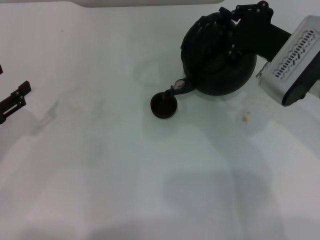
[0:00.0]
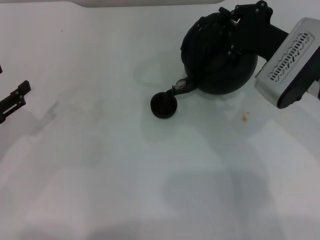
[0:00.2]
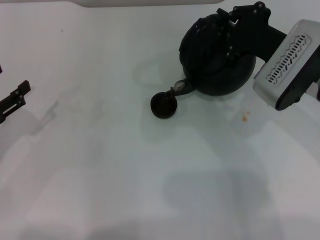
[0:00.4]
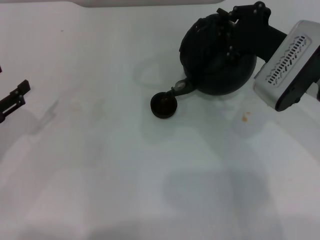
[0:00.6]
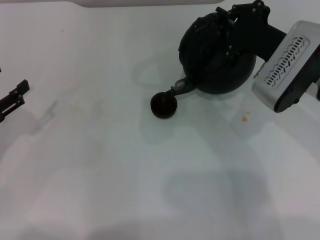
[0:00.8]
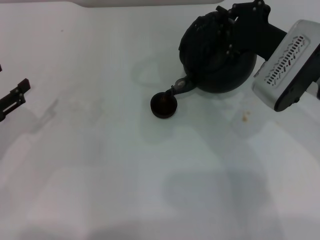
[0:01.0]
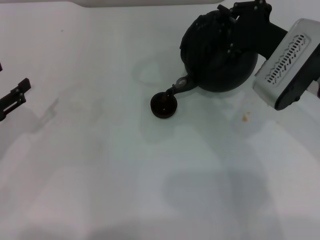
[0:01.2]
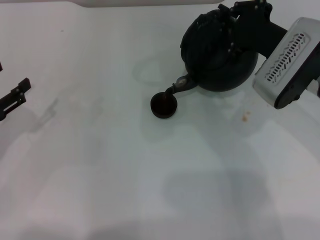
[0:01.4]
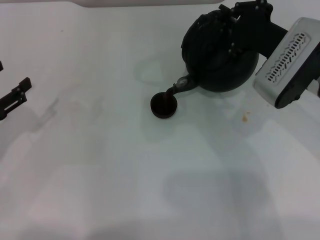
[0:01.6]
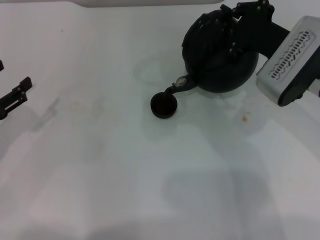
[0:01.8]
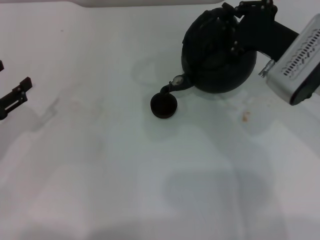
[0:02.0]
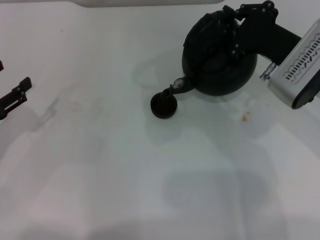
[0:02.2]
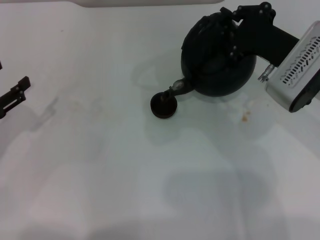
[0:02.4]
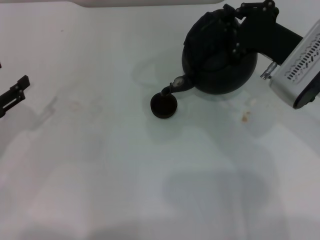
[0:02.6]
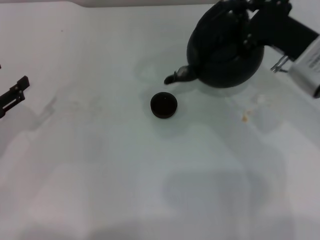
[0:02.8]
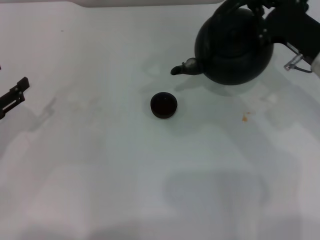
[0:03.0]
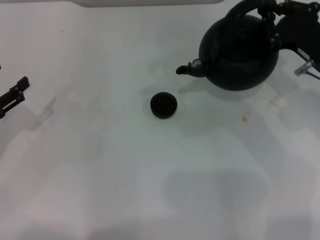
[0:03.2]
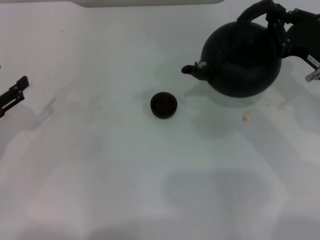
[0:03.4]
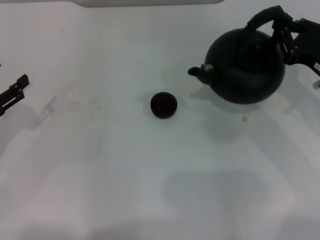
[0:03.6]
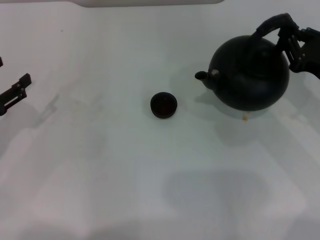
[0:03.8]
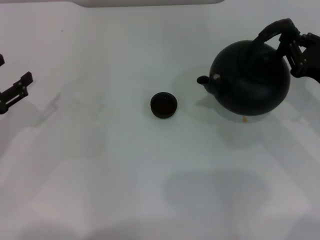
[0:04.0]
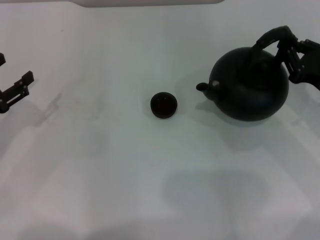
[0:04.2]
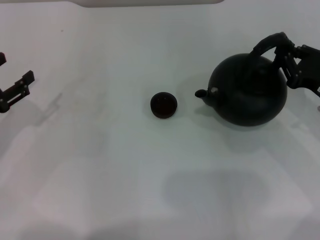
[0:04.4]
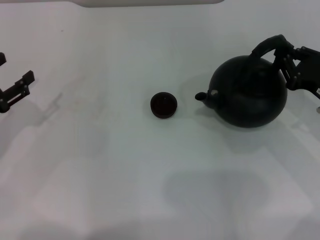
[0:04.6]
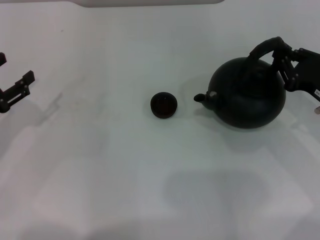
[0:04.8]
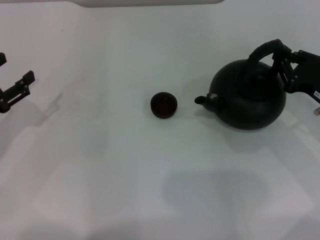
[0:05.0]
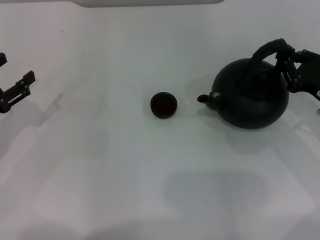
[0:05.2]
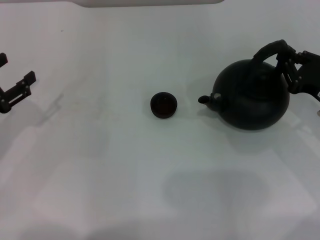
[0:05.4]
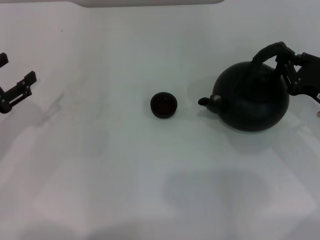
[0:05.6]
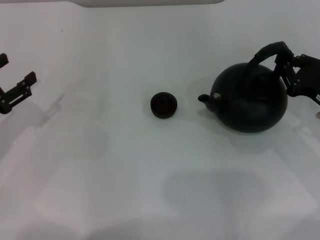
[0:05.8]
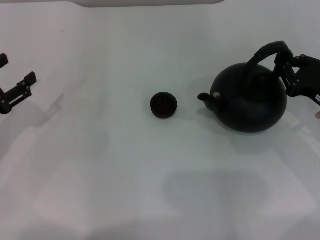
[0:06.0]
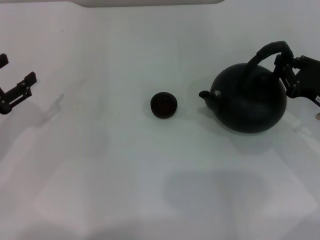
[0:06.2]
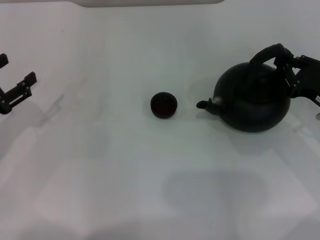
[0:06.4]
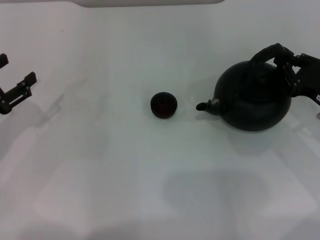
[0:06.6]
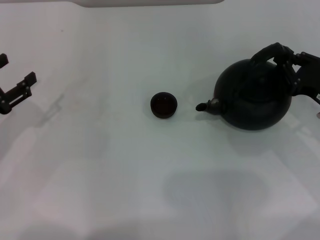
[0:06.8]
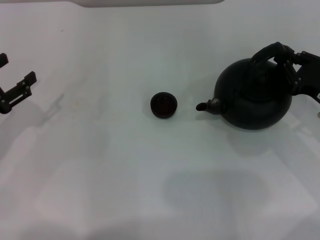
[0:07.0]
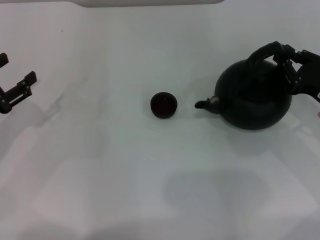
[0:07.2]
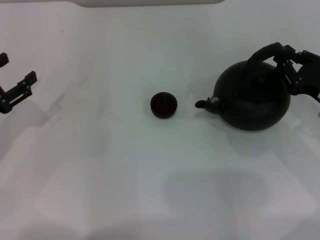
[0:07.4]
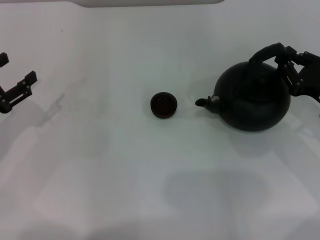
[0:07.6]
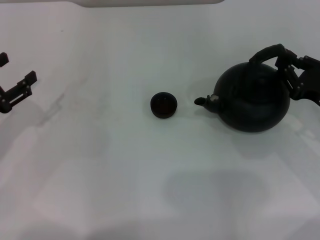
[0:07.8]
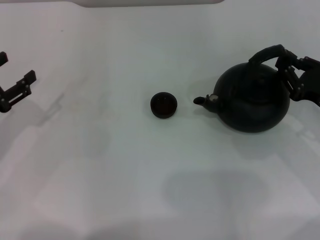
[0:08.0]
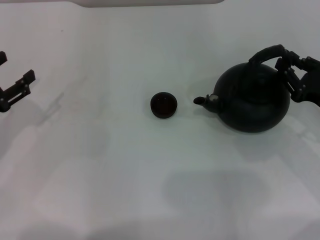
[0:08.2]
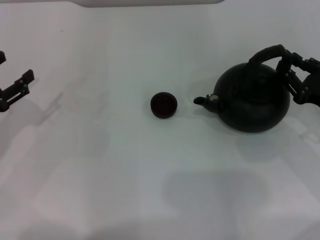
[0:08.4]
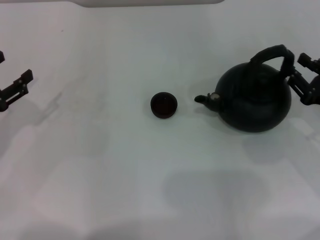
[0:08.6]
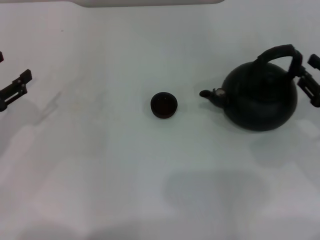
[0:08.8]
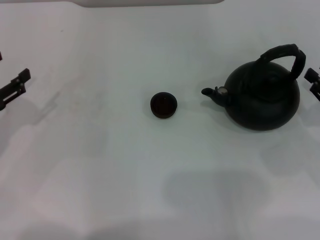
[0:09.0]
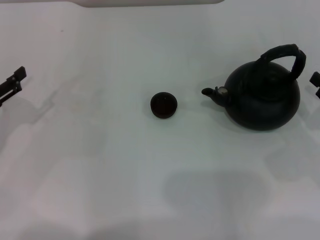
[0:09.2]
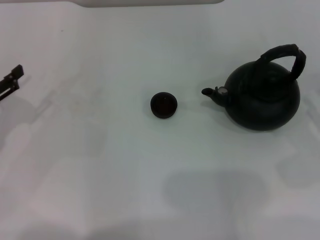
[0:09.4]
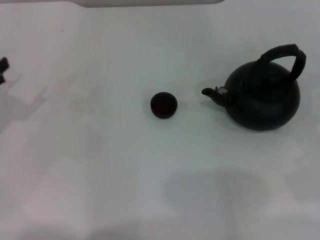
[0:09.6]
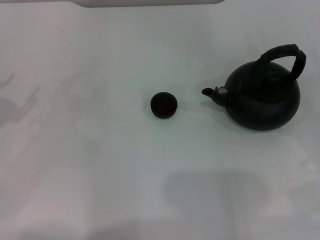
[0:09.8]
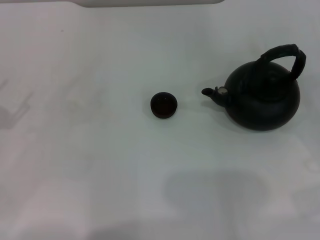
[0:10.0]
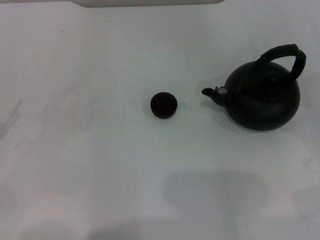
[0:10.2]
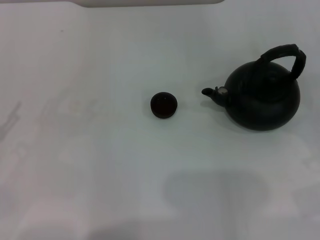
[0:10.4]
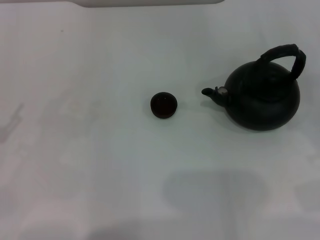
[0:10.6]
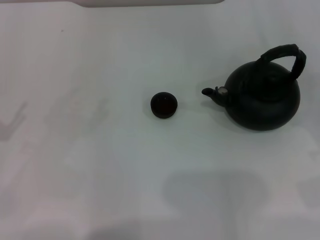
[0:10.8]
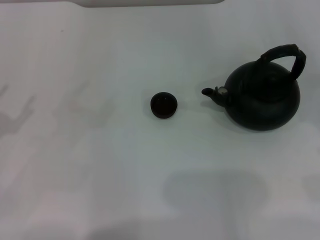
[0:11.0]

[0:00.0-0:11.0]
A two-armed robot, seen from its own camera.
Task of the whole recording: Grasp the handle of the teapot with one hand and pour tea into the teacup.
Step, 0:00.0 to 0:03.2: Pour tea into the teacup with the right gripper.
Step, 0:03.4 to 0:08.8: Put down the teapot with the right gripper.
0:00.0 to 0:01.6: The grippers stay close to where they were, moving slightly.
0:01.6 to 0:03.2: The right gripper is displaced to the right by about 5 cm.
0:03.2 to 0:04.8: The right gripper moves downward, approximately 5 cm.
0:04.8 to 0:06.2: The two grippers keep their place.
0:06.2 to 0:07.8: The two grippers keep their place.
0:07.8 to 0:09.4: The right gripper heads to the right and backward, covering about 10 cm, and opens.
0:09.4 to 0:11.0: The left gripper goes about 5 cm backward.
